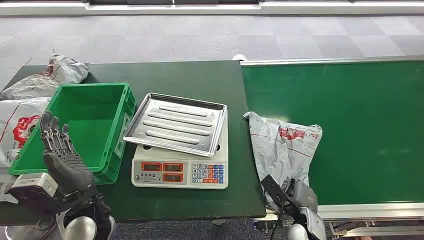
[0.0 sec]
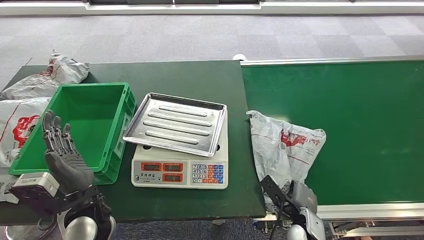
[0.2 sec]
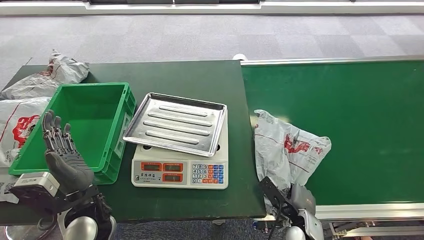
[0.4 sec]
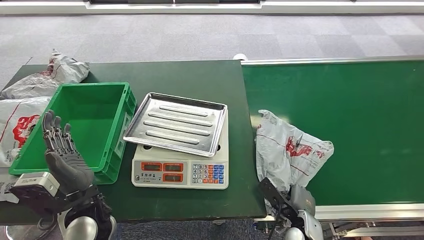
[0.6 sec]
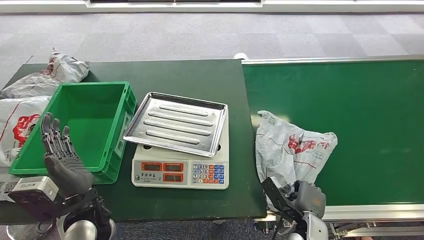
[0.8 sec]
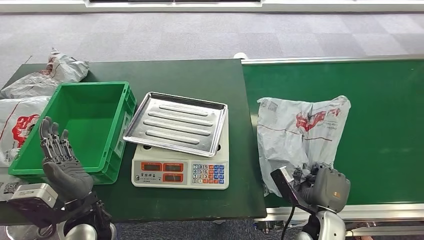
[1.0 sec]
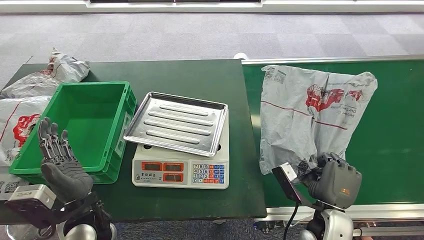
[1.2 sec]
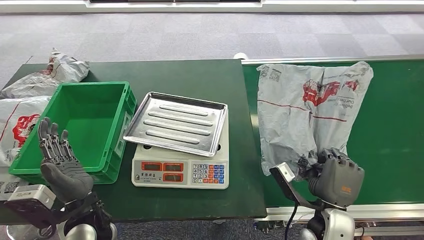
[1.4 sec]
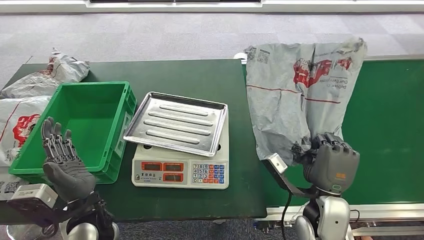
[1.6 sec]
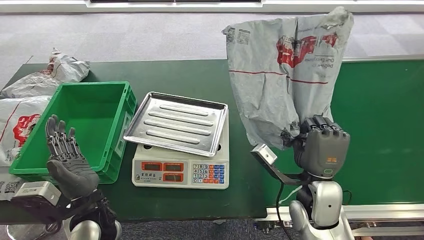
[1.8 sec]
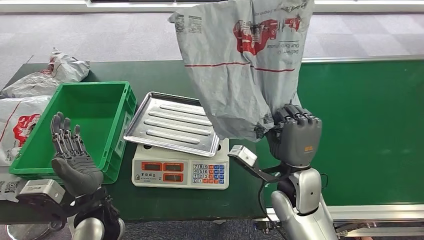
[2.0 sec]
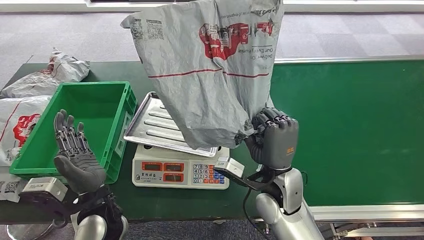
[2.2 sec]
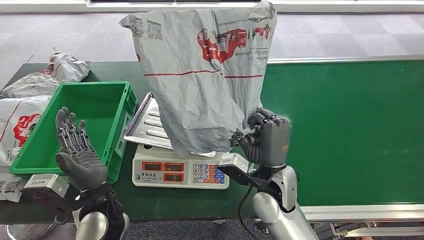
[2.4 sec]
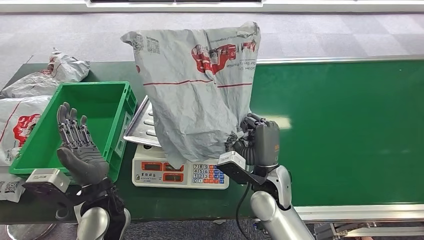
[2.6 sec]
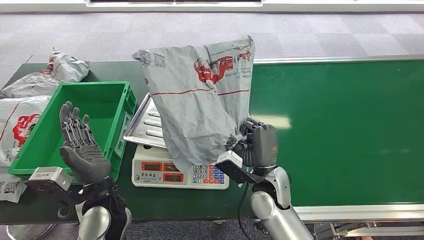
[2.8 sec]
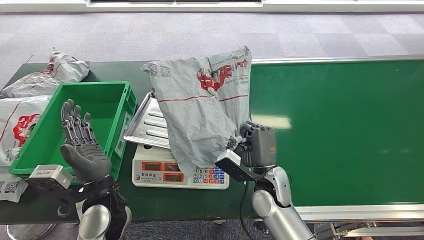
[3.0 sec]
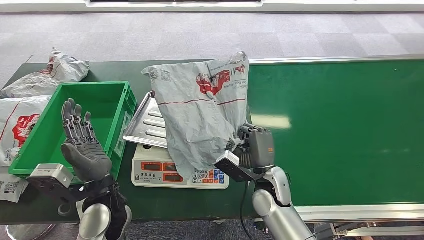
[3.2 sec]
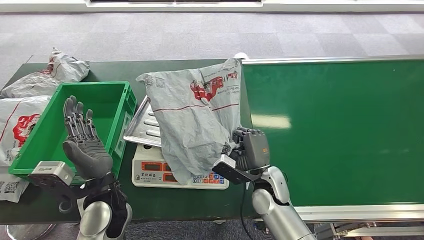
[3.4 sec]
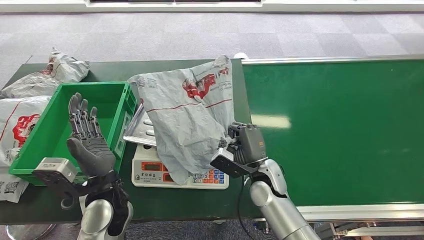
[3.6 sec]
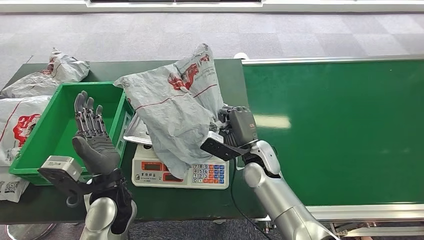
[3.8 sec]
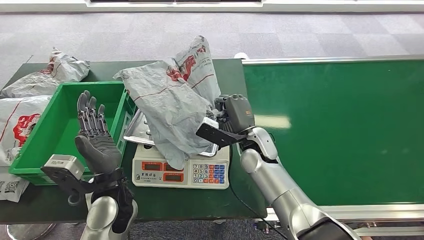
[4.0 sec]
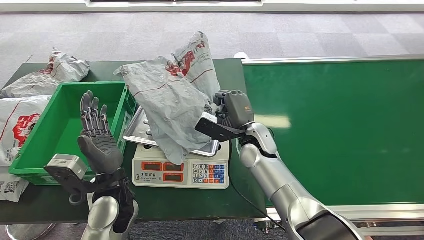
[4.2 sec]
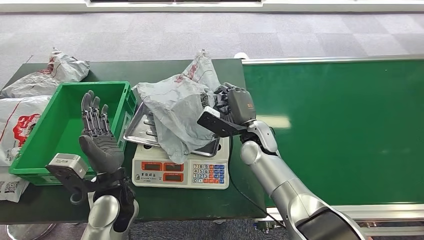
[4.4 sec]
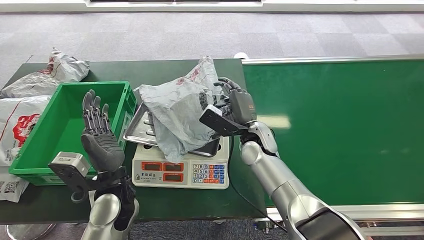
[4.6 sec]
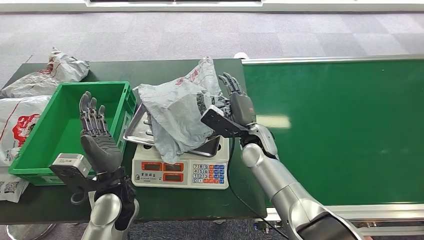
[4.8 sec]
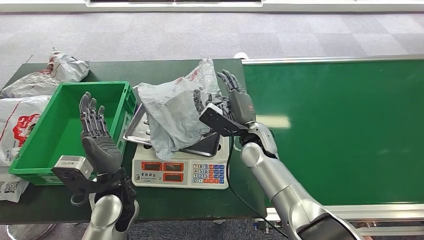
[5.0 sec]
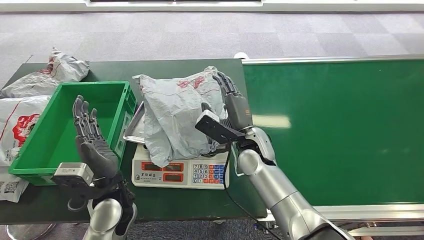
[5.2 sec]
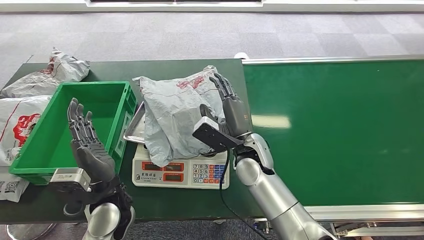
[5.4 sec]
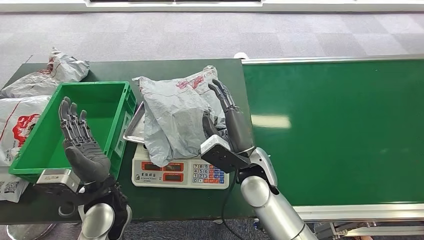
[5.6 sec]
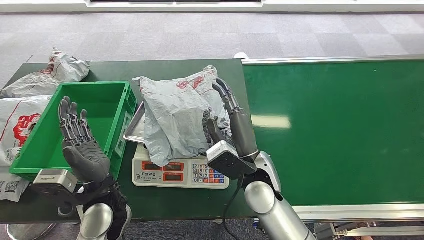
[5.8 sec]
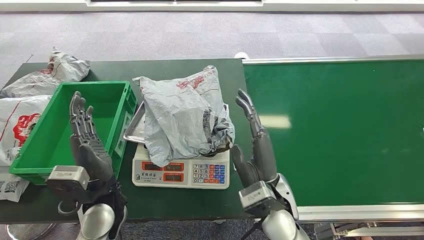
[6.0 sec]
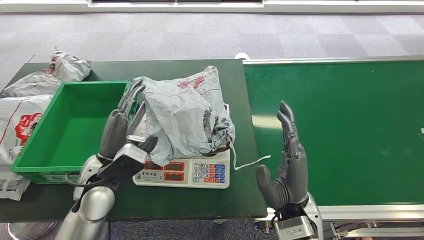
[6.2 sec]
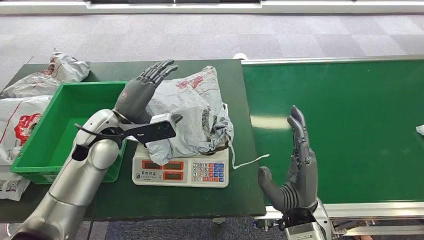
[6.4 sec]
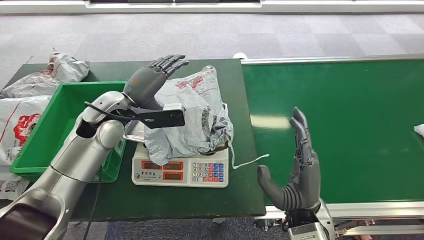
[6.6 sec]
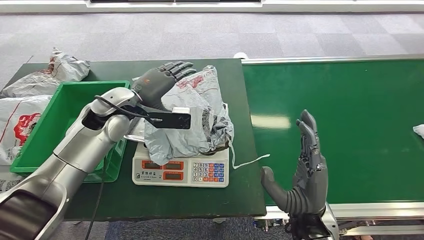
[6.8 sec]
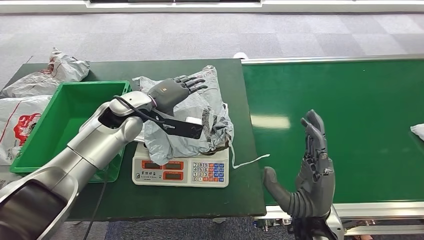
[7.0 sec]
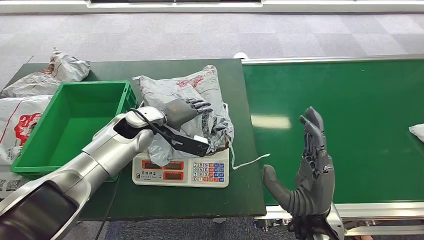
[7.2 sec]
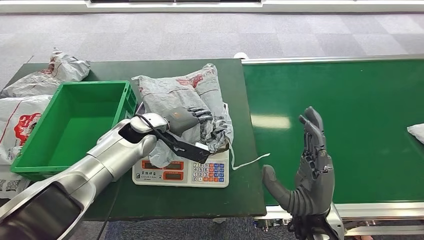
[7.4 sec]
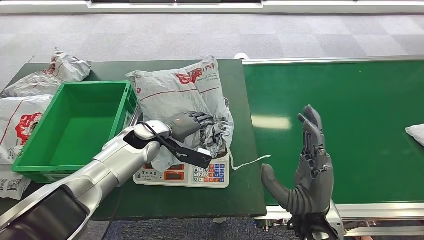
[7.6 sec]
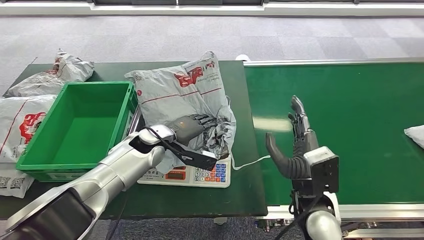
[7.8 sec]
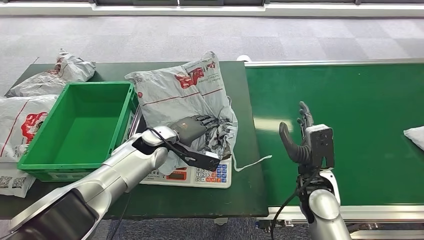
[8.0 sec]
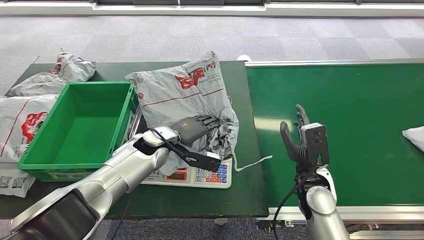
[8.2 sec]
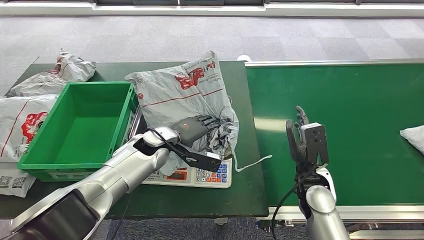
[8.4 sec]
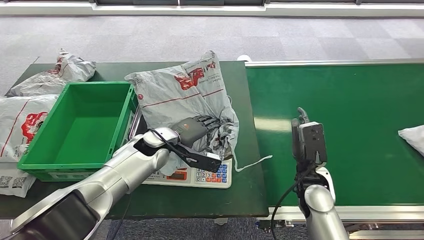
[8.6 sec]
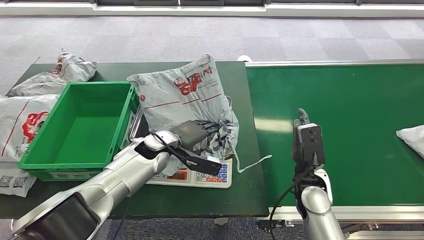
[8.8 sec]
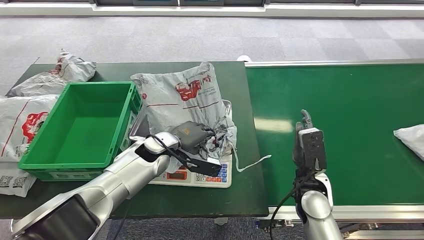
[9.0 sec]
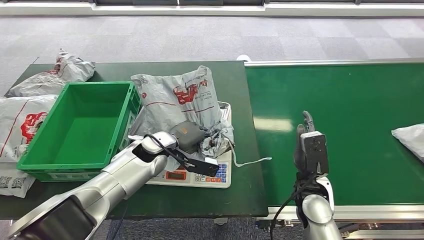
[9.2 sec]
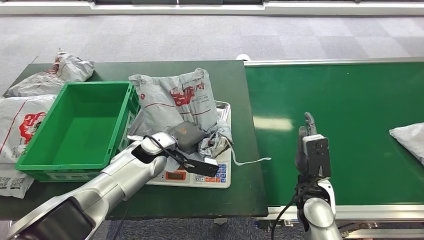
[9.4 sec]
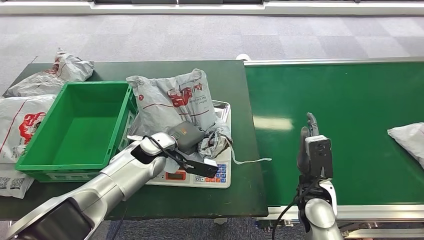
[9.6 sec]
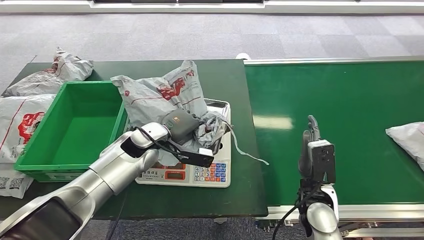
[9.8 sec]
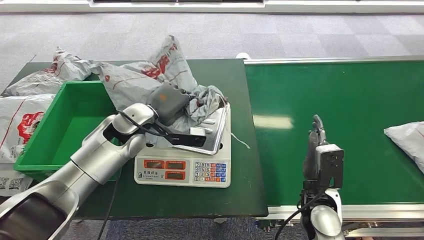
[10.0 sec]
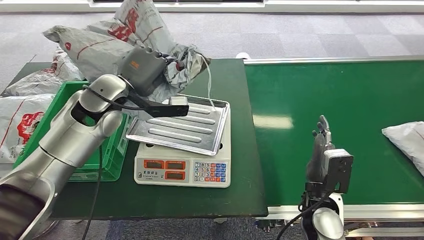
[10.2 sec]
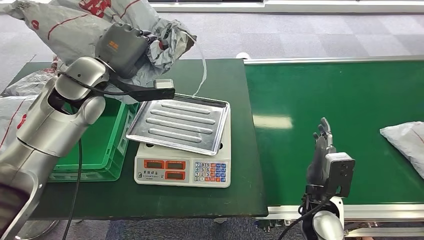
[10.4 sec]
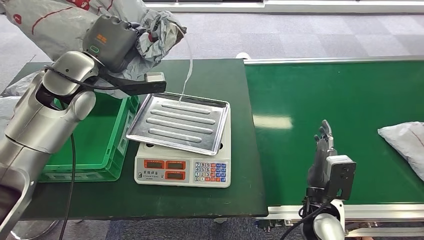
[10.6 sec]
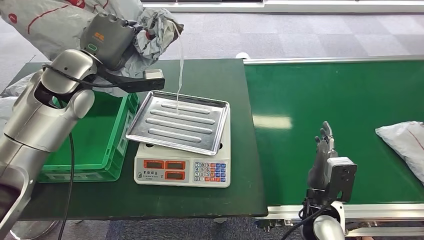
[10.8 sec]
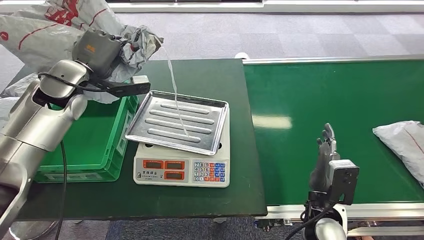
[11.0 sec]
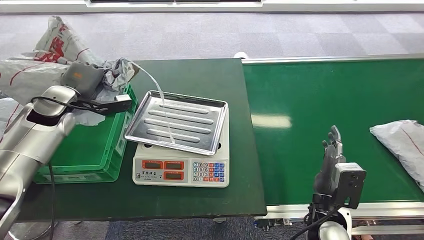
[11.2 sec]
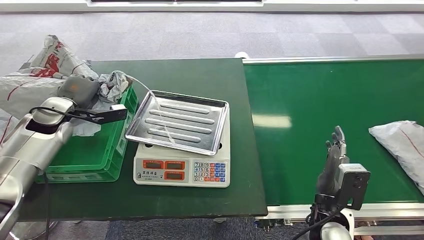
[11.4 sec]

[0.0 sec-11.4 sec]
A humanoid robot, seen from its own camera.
Step, 0.0 sec to 1.6 sec: Pick up the package from the conveyor belt.
Step, 1.8 sec to 5.8 sec: Place the package onto the inbound machine.
Step, 6.4 sec to 10.0 sec: Pick up the package from the inbound machine.
4.2 sec to 5.6 sec: The right hand moves backward, about 10 cm.

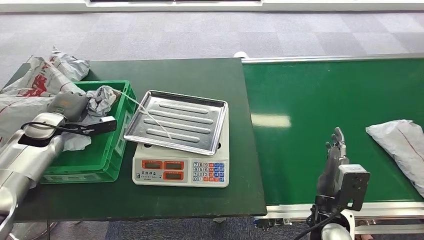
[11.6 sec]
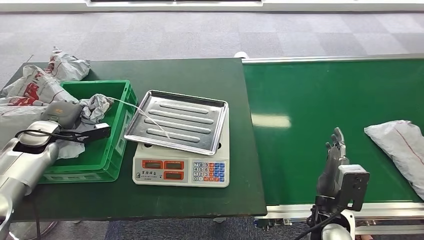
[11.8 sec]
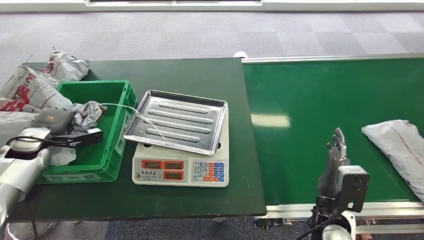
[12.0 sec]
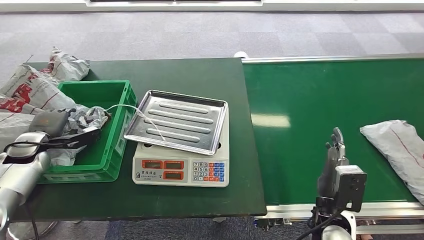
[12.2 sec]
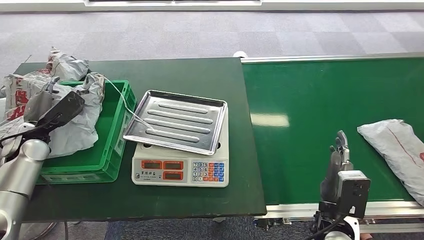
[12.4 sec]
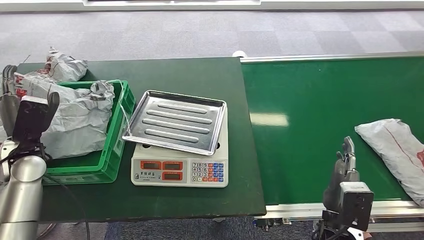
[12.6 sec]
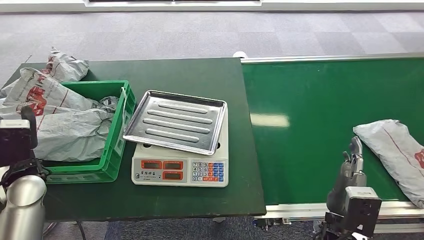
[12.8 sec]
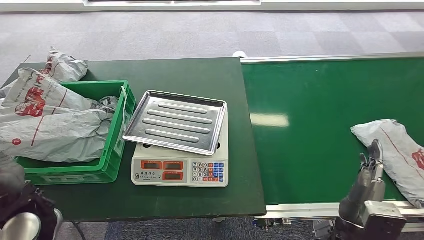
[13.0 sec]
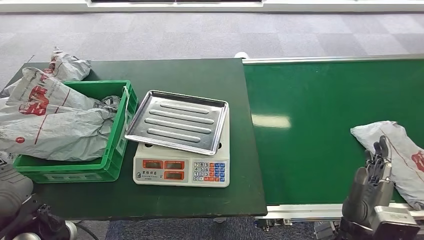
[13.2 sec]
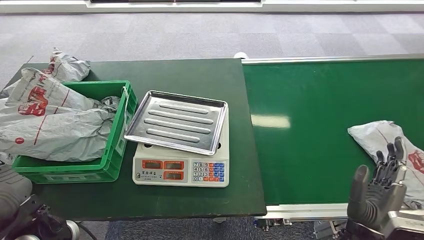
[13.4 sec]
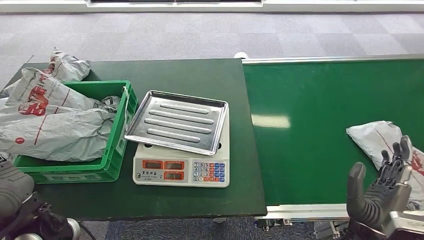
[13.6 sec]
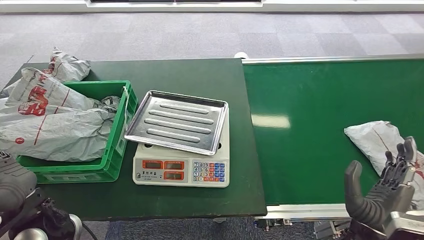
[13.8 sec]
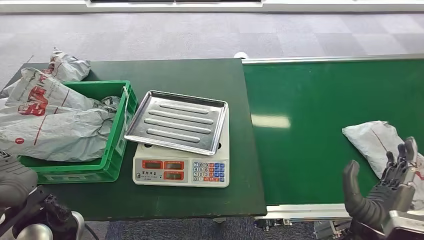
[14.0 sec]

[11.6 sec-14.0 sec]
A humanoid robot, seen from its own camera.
Step, 11.6 sec to 13.8 sec: Place the package into the parcel locker.
11.6 sec to 12.8 sec: The left hand goes about 10 cm backward.
12.8 sec to 14.0 sec: The left hand goes roughly 15 cm to the right and backward.
